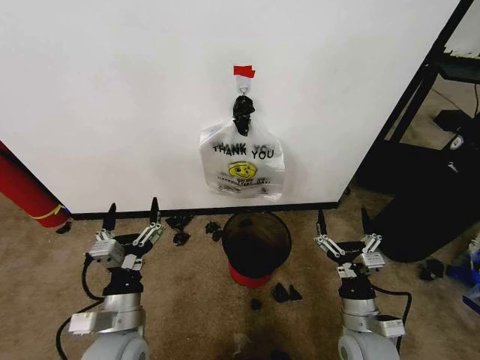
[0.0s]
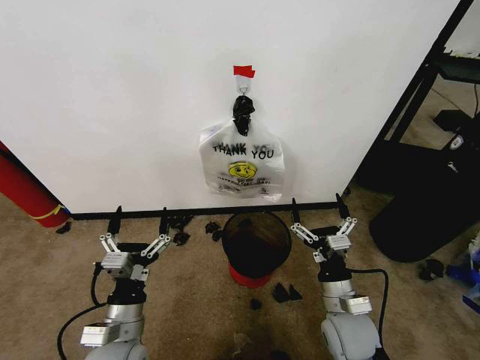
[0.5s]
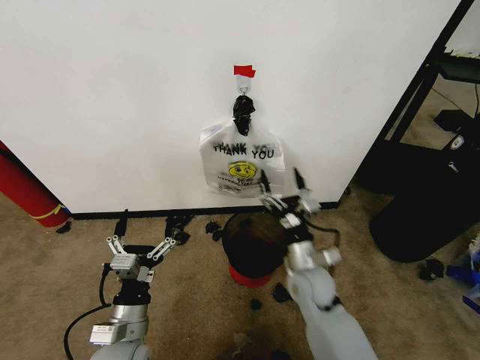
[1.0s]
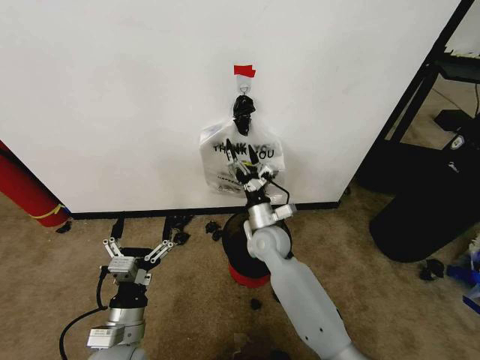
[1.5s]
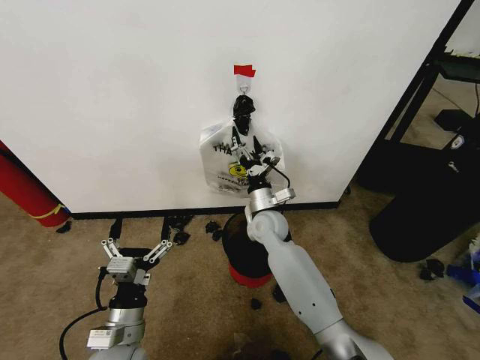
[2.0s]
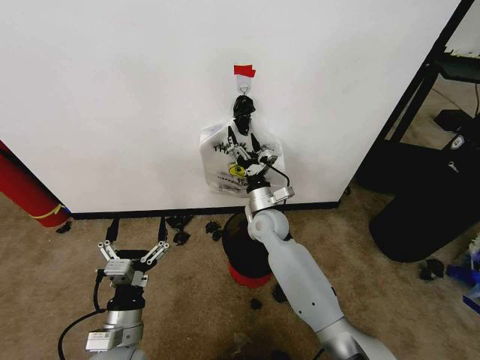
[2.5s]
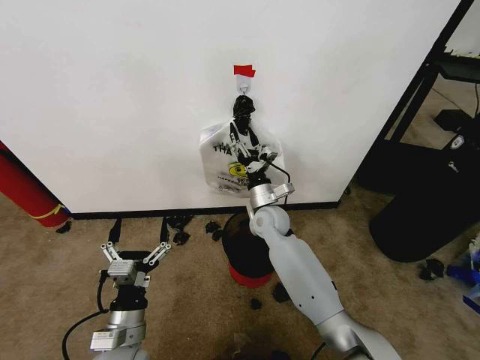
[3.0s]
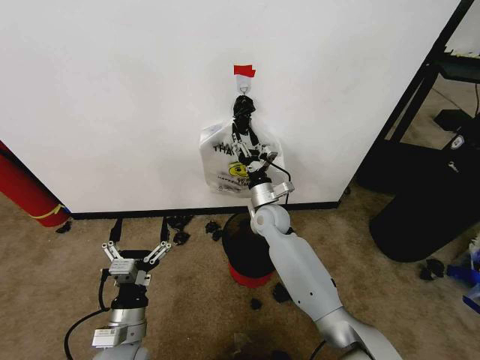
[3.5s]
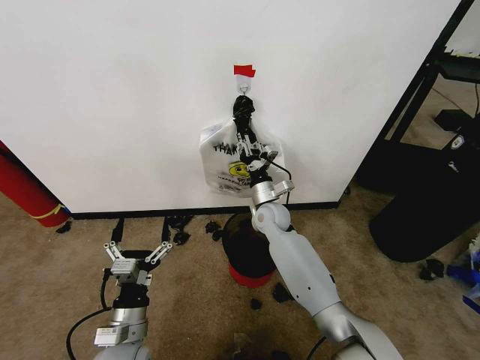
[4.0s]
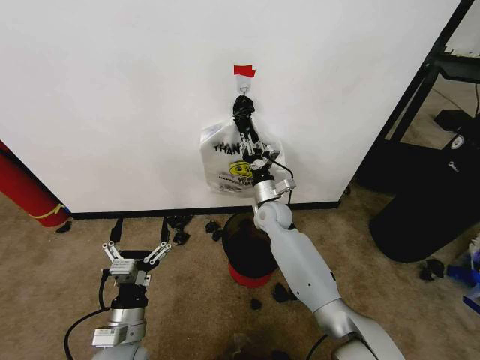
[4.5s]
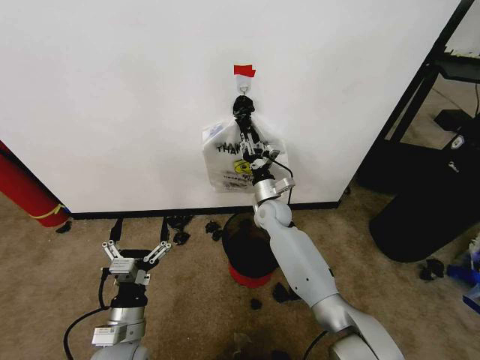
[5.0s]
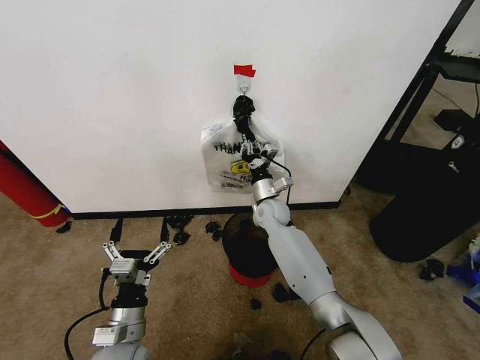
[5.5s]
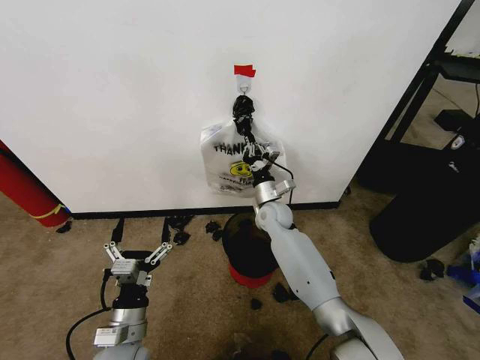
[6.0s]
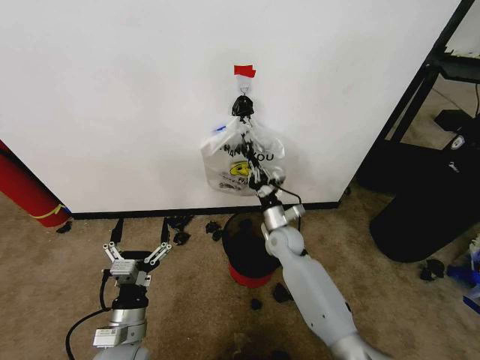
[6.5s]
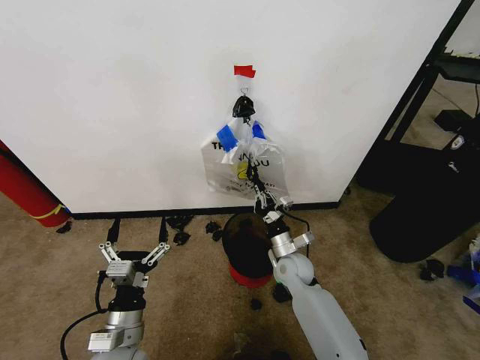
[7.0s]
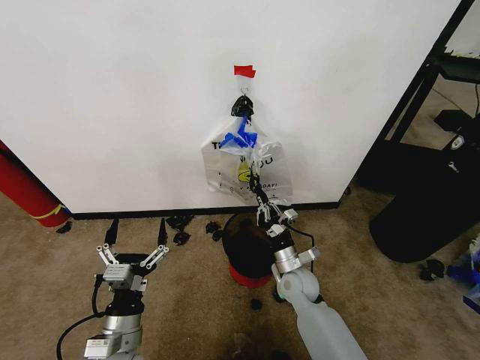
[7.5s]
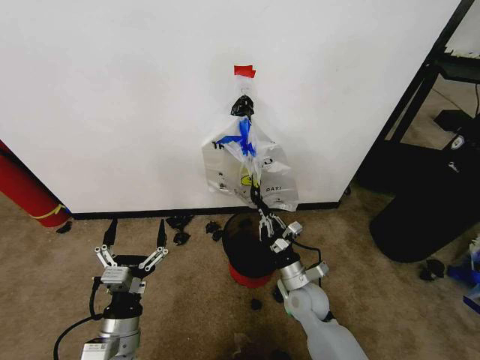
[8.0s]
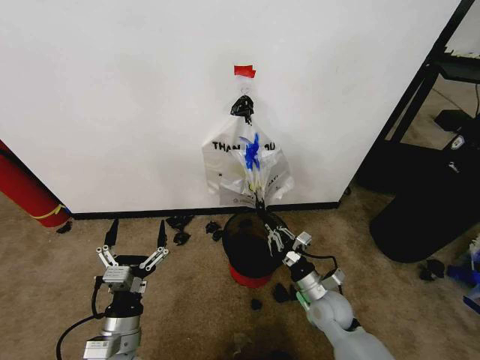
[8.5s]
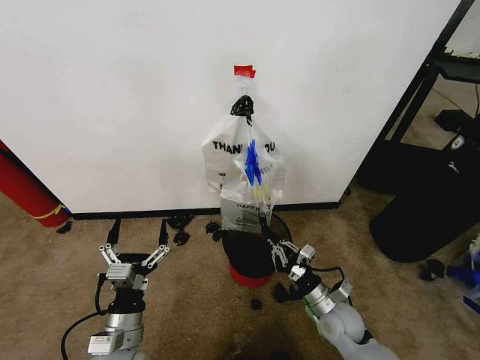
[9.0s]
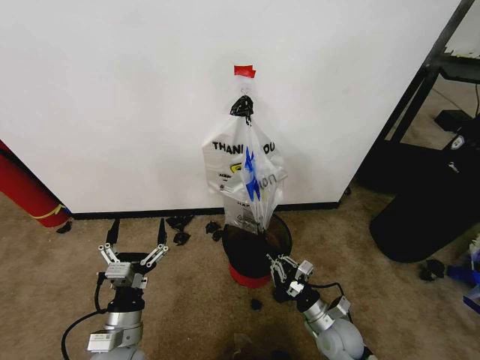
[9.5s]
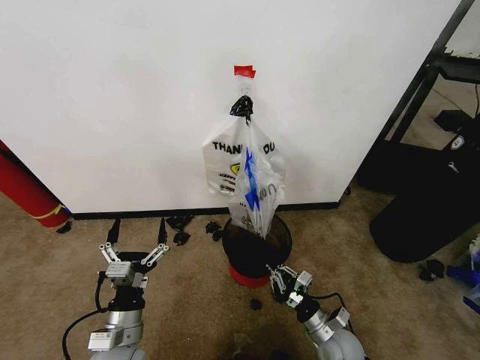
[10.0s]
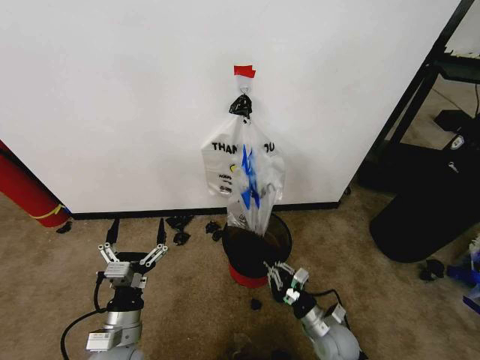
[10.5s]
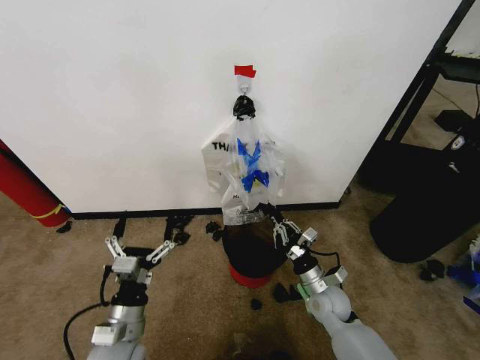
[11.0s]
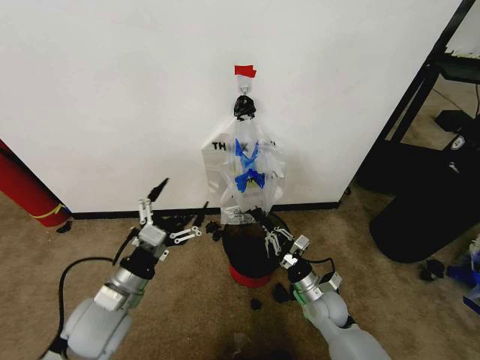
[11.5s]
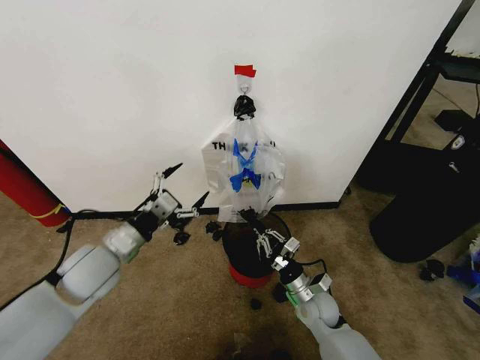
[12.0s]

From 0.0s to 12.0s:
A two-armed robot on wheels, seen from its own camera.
Task of the whole recording: Pick up the garbage bag from the wall and place it over the trash bin.
From 2.0s to 4.0s: The right gripper closes up.
From 4.0s to 6.0s: The right gripper closes its fingers.
From 6.0s to 8.0s: The right gripper shifts some 20 cm backward and downward.
From 8.0s to 10.0s: The right gripper goes some 15 cm backward, to the right and downward.
From 10.0s to 12.0s: The left gripper is displaced forward and upward by approximately 20 cm; the right gripper heads forward, covering roughly 10 cm.

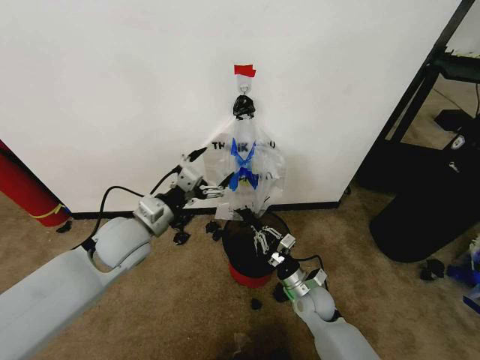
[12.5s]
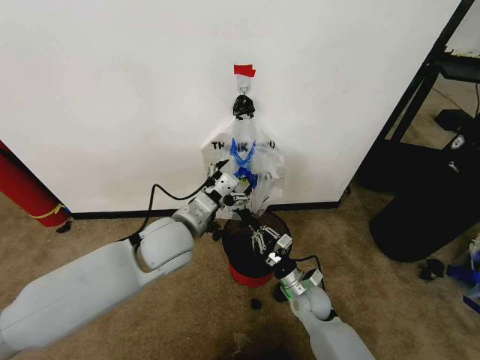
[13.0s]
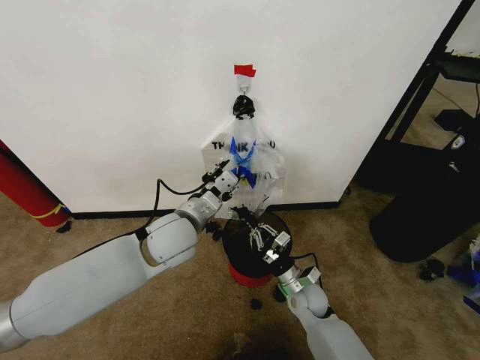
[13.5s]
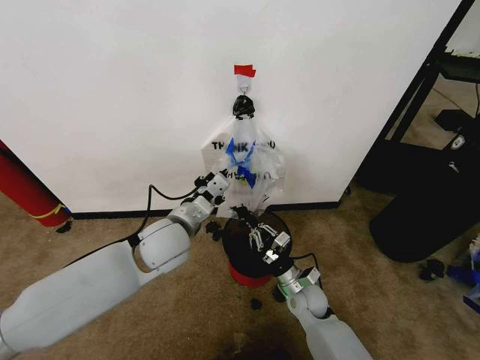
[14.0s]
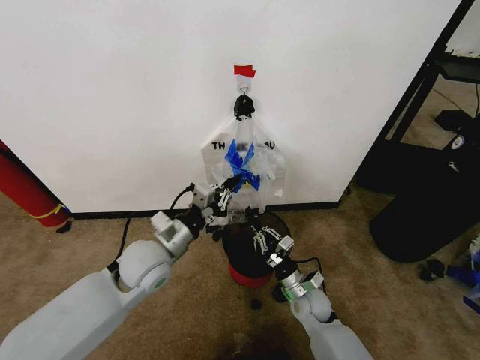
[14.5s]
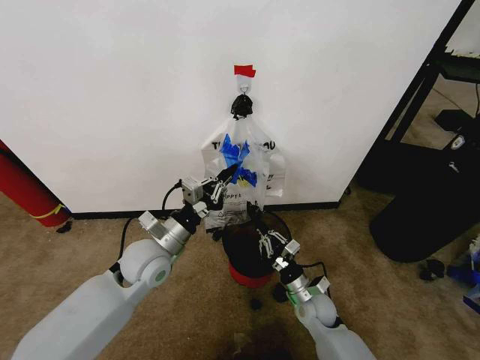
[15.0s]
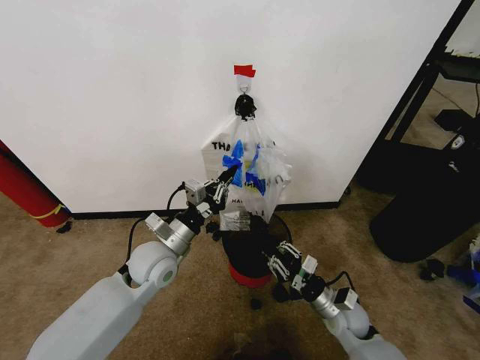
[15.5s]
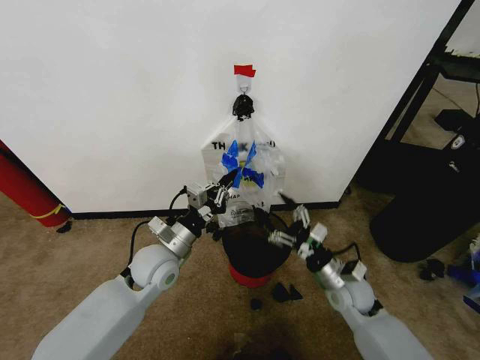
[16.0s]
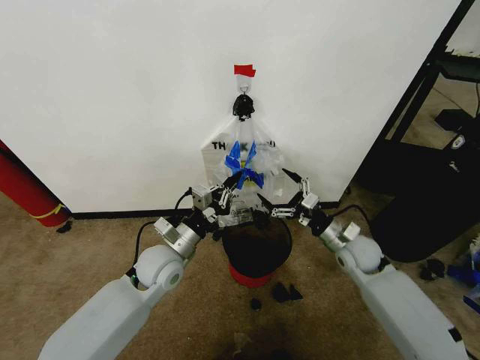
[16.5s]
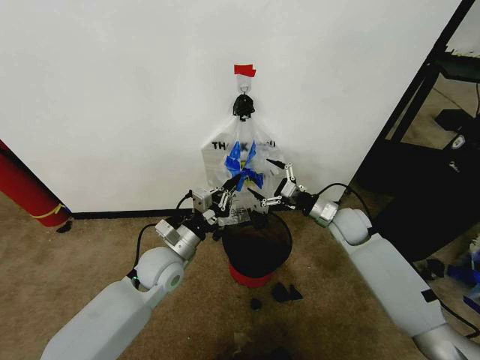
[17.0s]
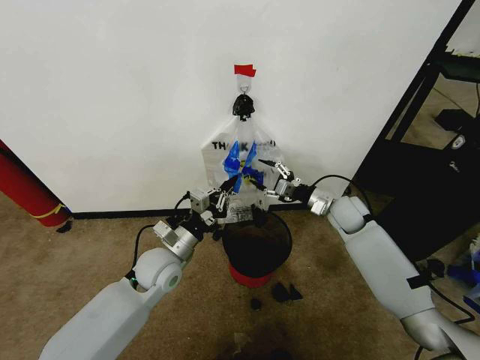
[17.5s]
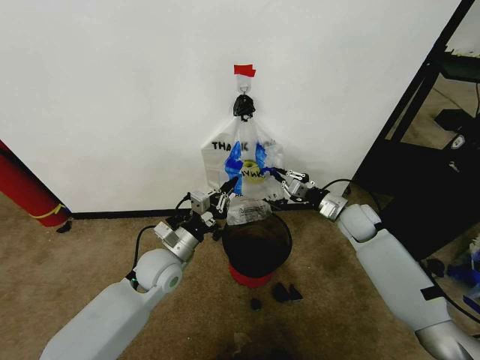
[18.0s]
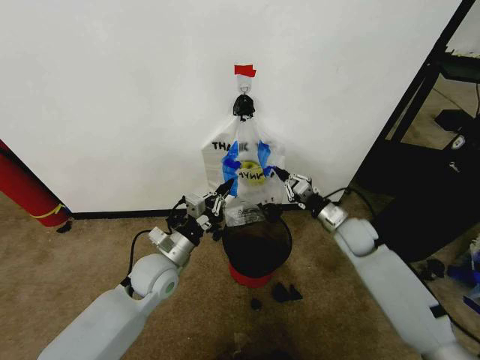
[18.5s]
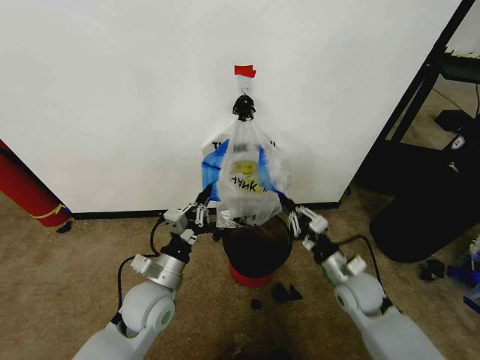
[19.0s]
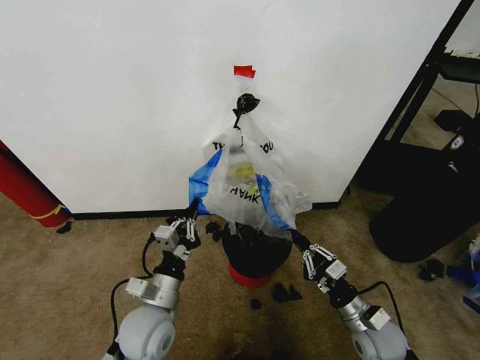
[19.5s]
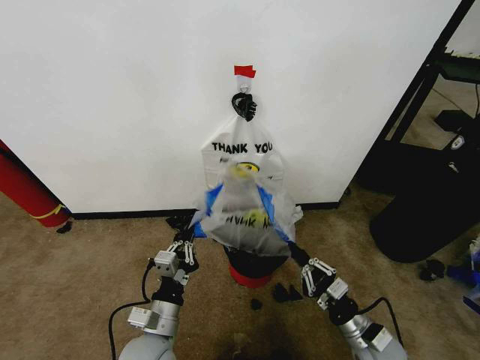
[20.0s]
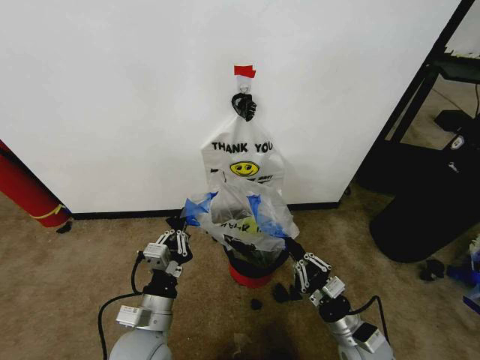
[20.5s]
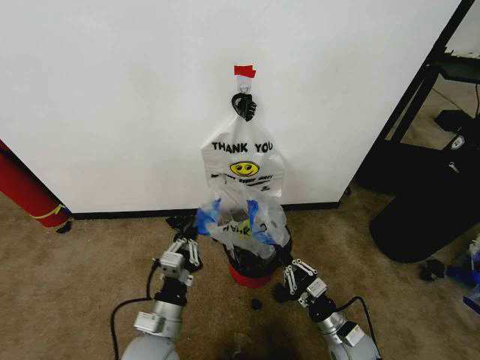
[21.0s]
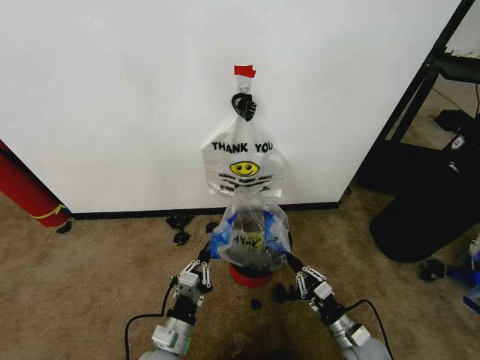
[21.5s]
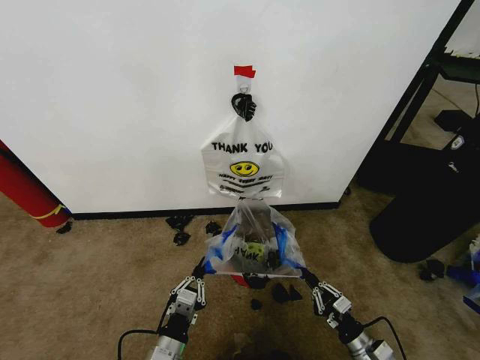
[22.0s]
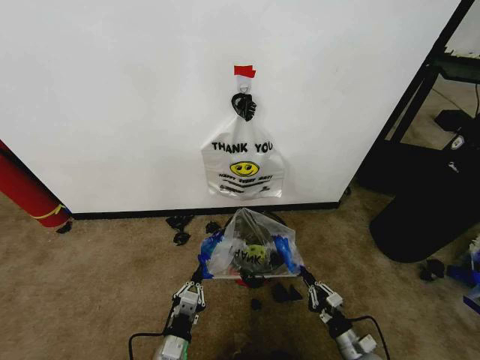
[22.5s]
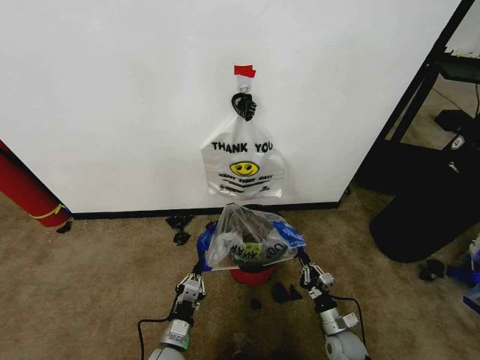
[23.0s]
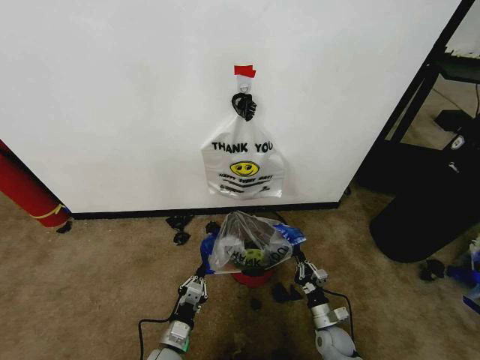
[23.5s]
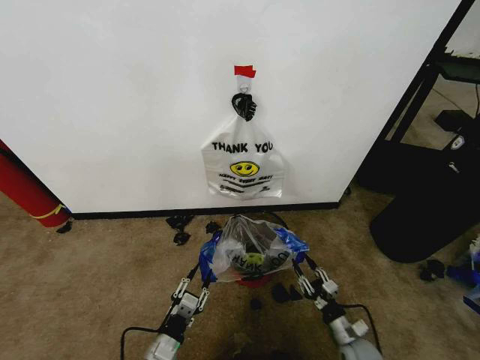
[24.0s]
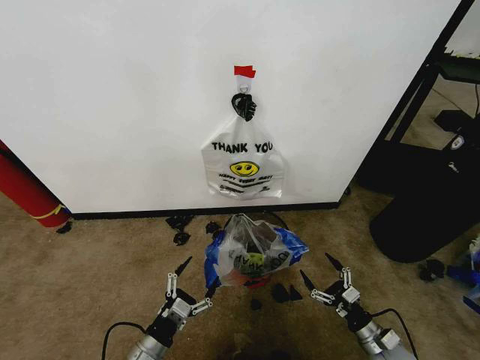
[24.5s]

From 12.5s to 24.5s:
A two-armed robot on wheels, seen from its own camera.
Task of the whole recording: Pick up the garbage bag from the wall and place it over the trash bin.
From 12.5s to 14.5s: The left gripper closes up.
From 14.5s to 16.5s: The right gripper heads upward, to the right and forward, covering approximately 20 cm, and opens up; the left gripper shifts by about 5 cm.
From 16.5s to 18.5s: The right gripper closes its fingers.
From 18.5s to 20.5s: The right gripper heads backward, covering roughly 25 cm; the left gripper goes about 15 cm backward.
From 20.5s to 22.5s: The two grippers go roughly 15 cm downward.
From 22.5s to 24.5s: The right gripper is displaced to the right by some 5 cm, and opens up. Meanwhile the left gripper moves to the left, some 5 cm, and opens up.

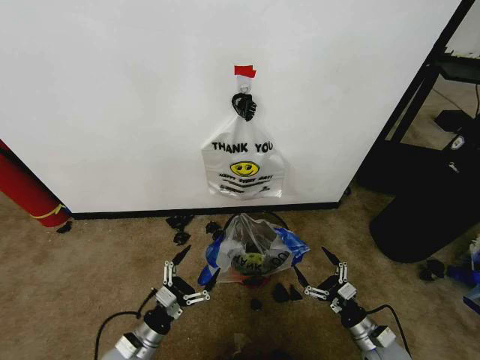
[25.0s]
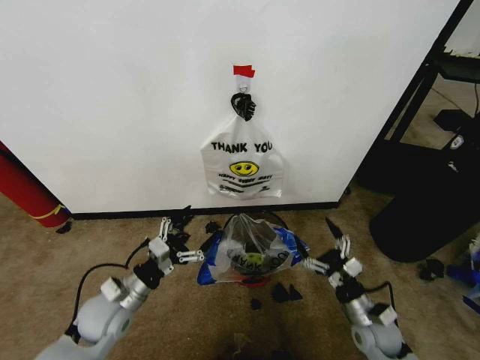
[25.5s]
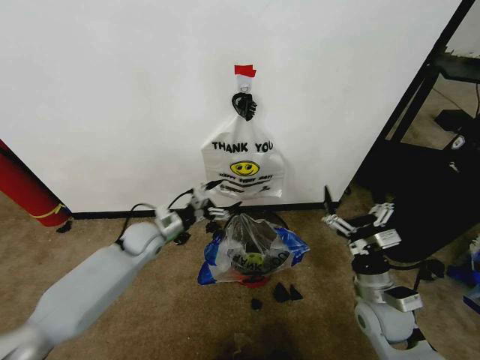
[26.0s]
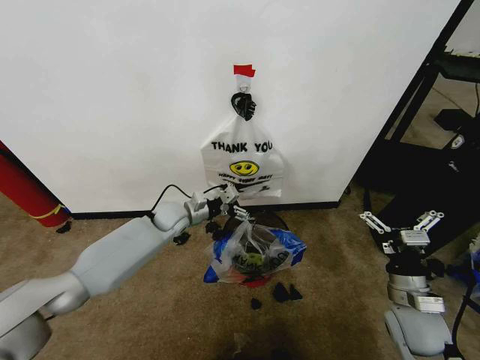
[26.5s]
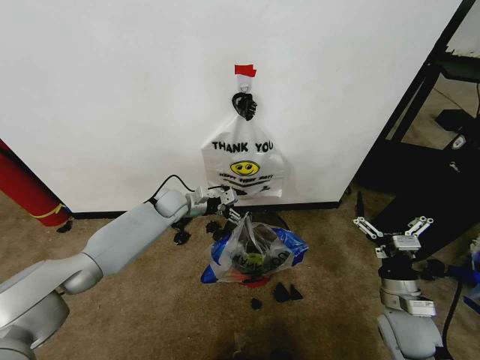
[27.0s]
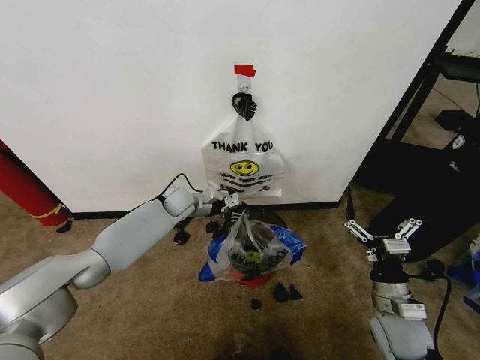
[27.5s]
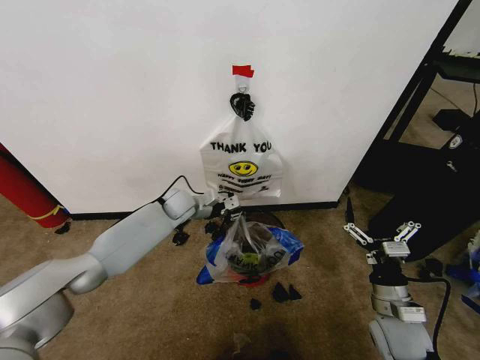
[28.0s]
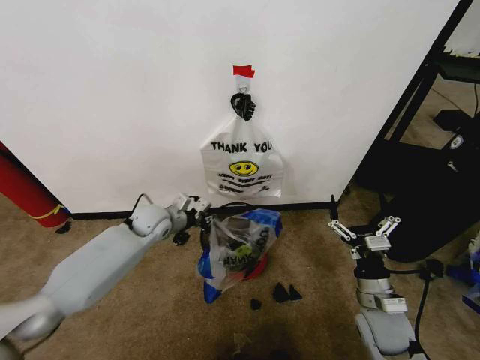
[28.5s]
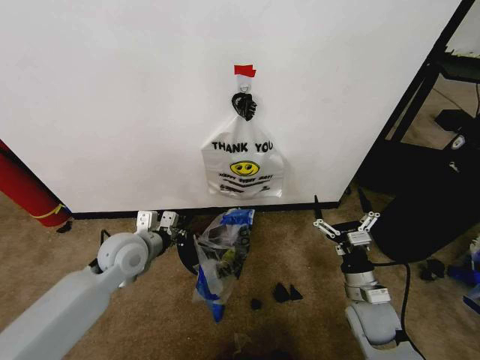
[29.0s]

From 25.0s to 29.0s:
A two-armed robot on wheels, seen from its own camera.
Task of the whole recording: Pick up the garbage bag from the wall and place it over the trash bin.
From 25.0s to 27.0s: The left gripper shifts approximately 40 cm forward and upward; the right gripper goes about 15 cm upward.
From 27.0s to 29.0s: The right gripper shifts by roughly 5 cm. The left gripper moves backward, roughly 20 cm, and closes.
